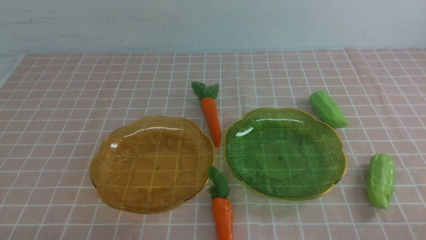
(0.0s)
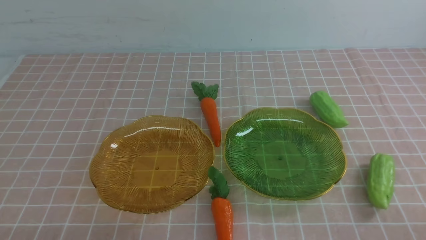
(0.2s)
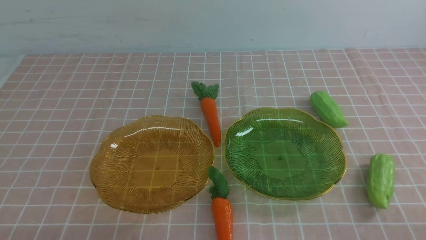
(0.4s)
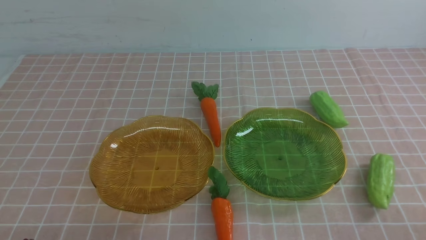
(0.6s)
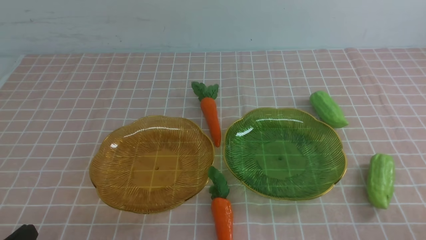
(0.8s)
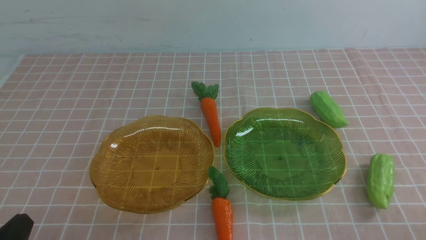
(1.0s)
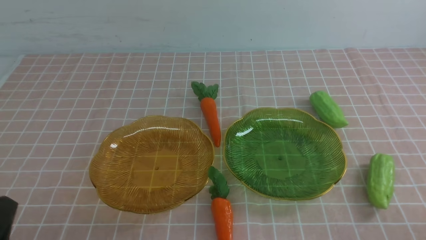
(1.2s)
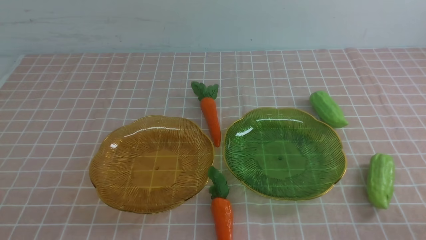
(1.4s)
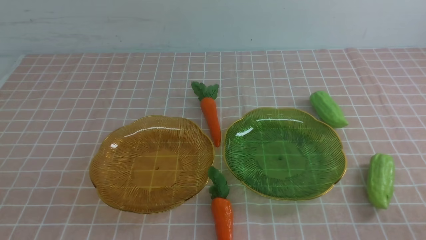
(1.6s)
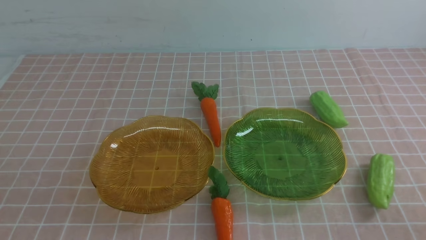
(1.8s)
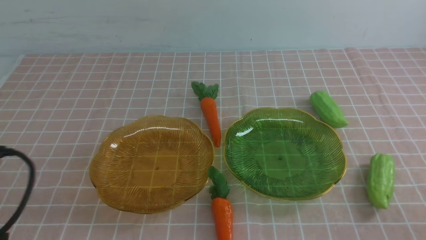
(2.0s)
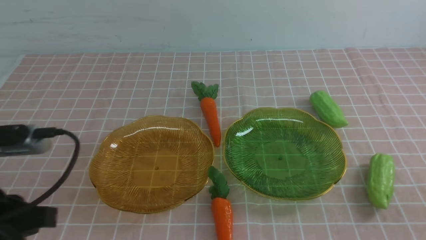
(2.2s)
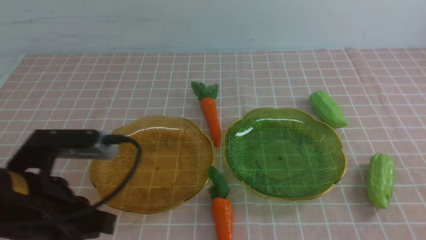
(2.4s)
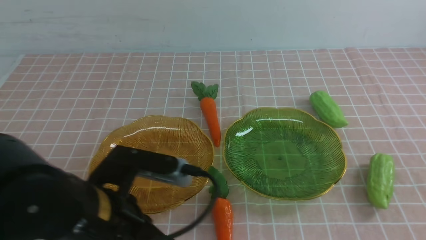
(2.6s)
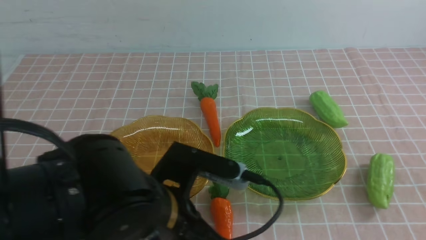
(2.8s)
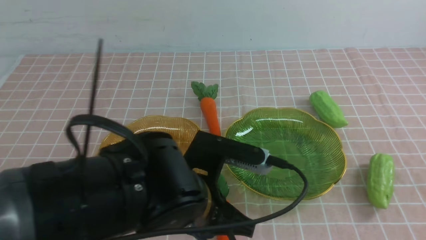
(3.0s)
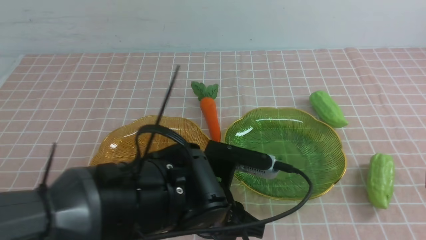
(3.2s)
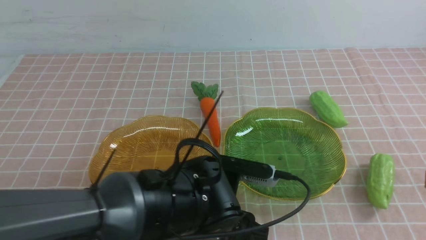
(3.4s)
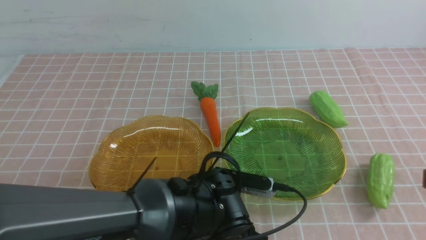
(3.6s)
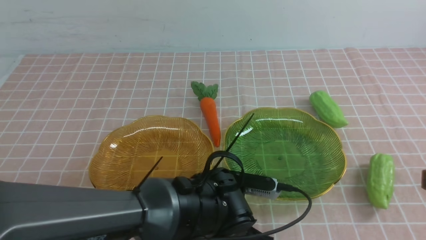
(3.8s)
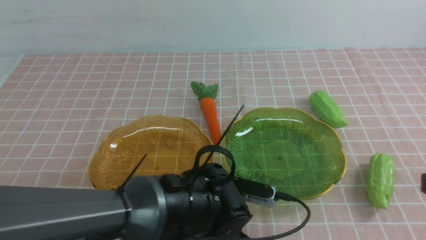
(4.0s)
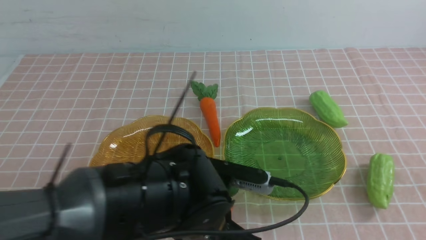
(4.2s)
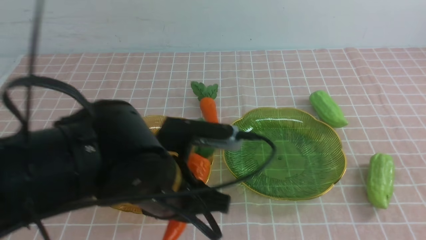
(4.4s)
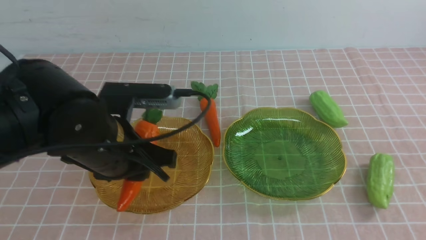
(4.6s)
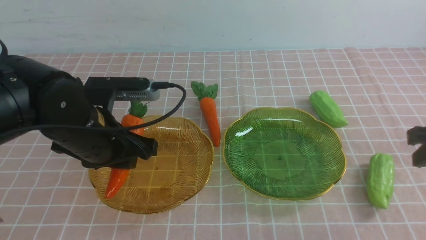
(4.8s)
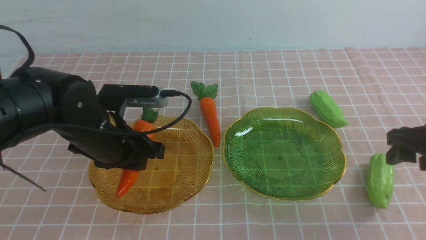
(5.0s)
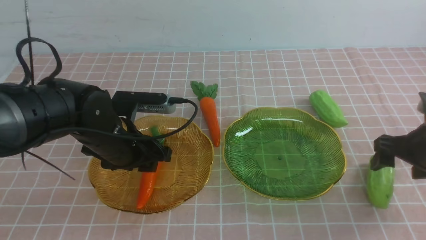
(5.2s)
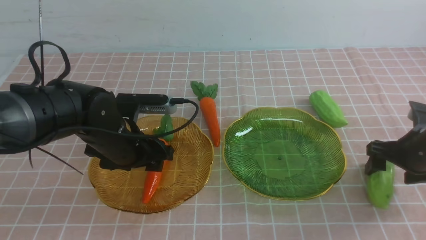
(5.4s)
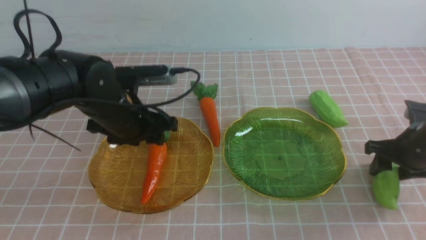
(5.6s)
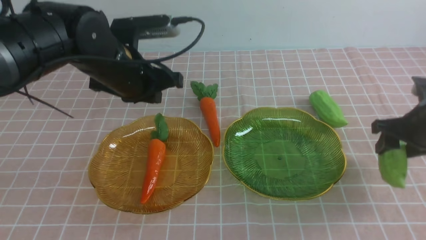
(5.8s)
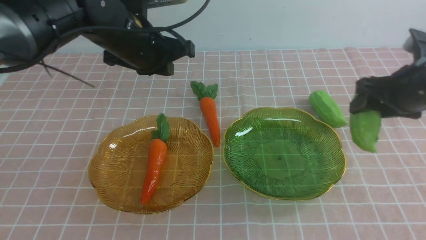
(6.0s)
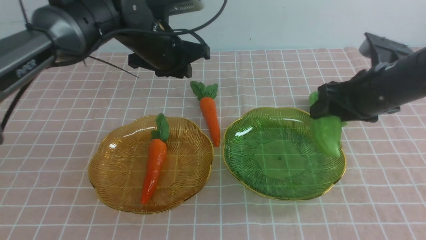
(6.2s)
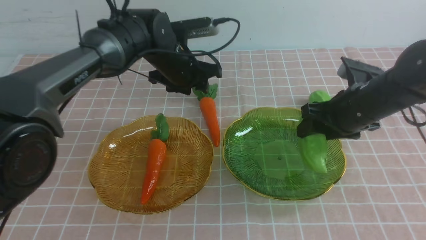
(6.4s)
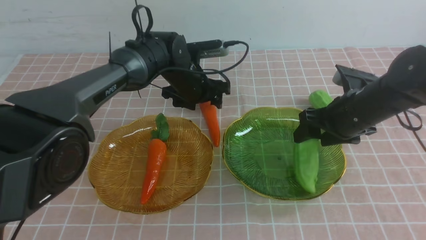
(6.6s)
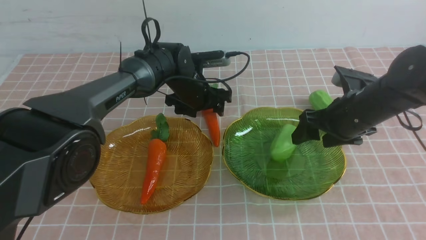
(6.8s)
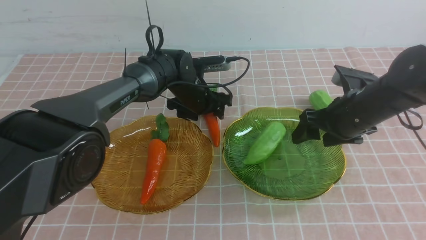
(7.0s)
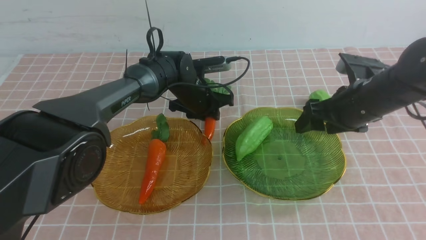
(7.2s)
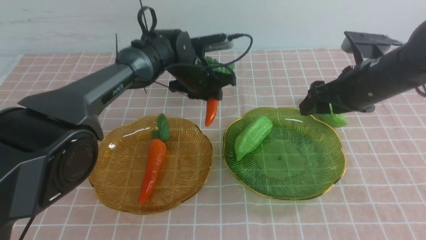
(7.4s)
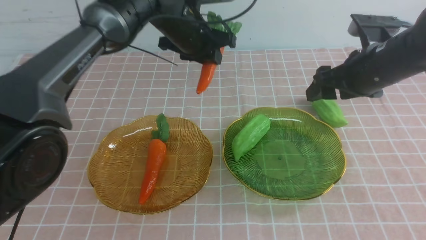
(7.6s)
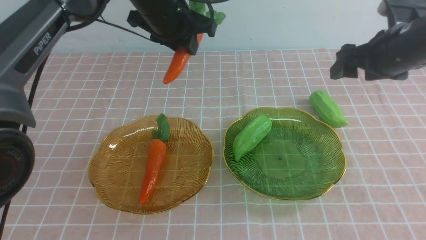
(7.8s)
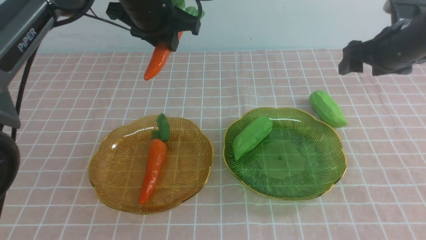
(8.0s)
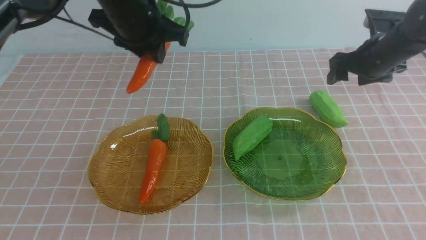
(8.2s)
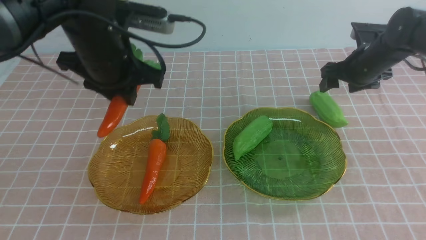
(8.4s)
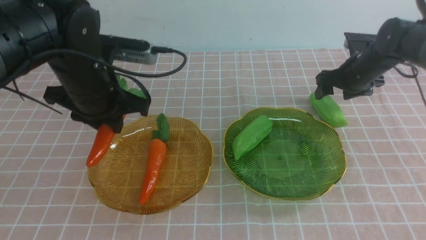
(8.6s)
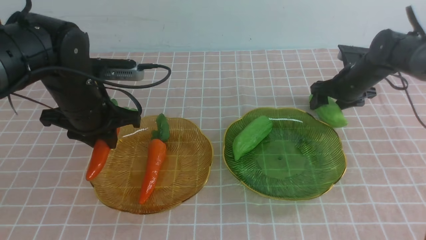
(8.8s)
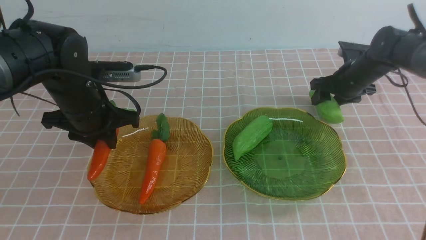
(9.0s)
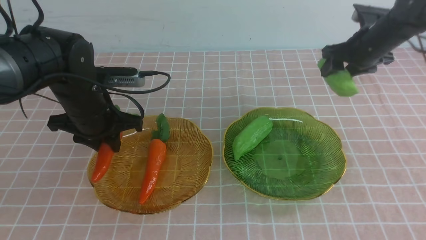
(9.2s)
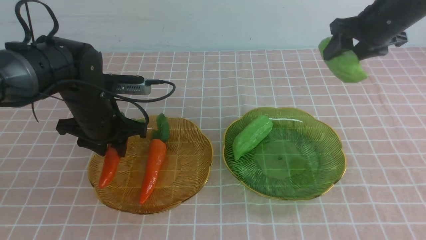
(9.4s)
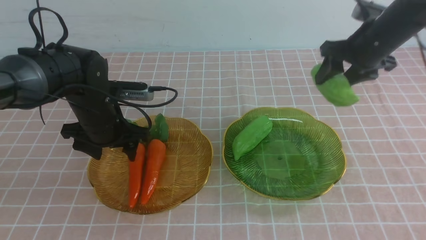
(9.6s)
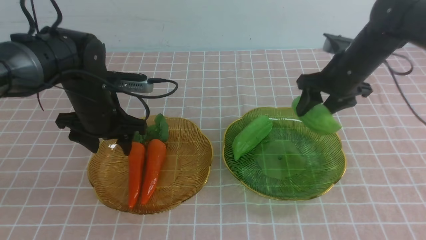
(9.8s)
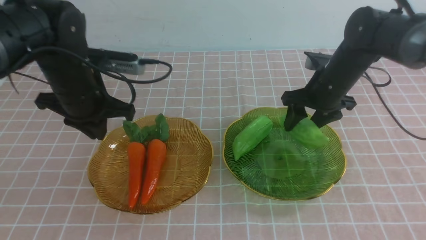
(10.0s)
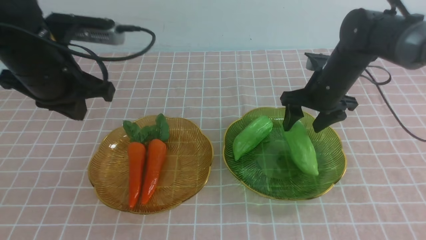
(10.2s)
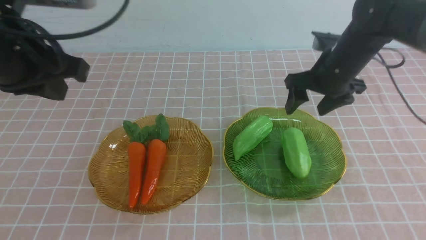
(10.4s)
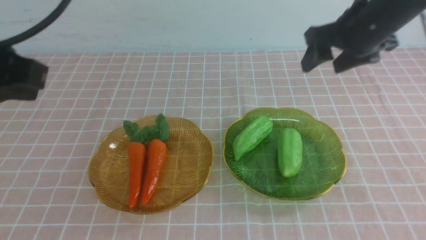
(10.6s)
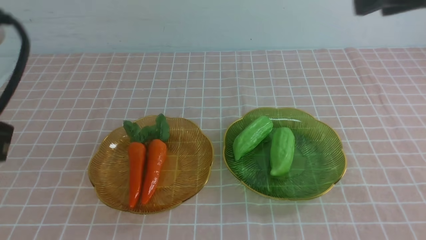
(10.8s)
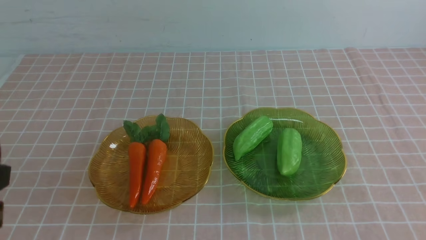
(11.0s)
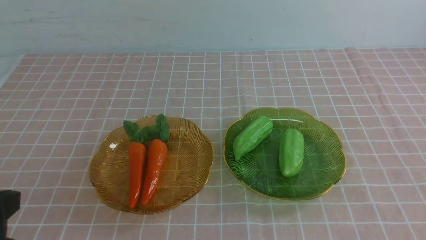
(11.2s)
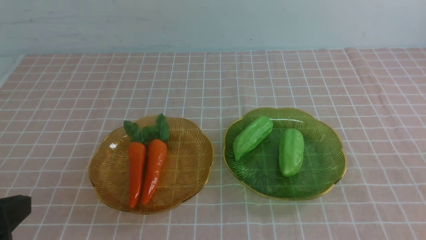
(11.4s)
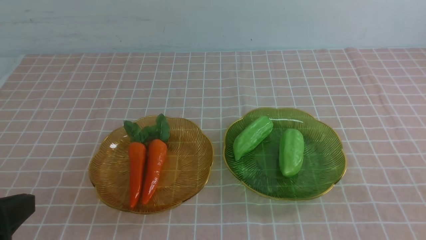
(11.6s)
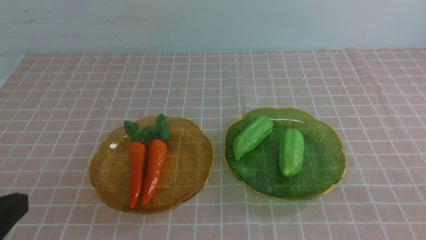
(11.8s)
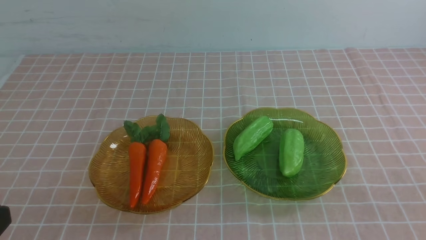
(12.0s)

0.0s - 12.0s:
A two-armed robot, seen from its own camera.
Step, 0.0s - 5.4s: use the left arm to grab a carrot and put it into the left plate.
Step, 5.6s - 6.8s: use the right arm to grab a chayote and put it into the right plate.
Step, 7.0s - 9.4s: use the left arm to grab a carrot and put it into the left plate.
Step, 9.6s - 10.2s: use the right arm to grab a chayote and put it into the right plate.
1.6s - 3.0s: The right gripper shifts approximately 15 cm upward and forward; the left gripper heads to the right and forward, covering roughly 25 cm.
3.0s - 4.4s: The right gripper ends up roughly 5 cm from where it was. The left gripper travels downward and back again, some 10 cm each way, and opens, then closes once more.
4.4s - 6.0s: The right gripper goes about 20 cm forward, downward and to the left, and opens. Meanwhile the left gripper is displaced forward by about 25 cm.
6.0s - 7.6s: The right gripper moves upward, approximately 5 cm, while the left gripper moves upward, some 10 cm.
7.6s - 9.0s: The left gripper goes roughly 15 cm downward, to the left and backward, while the right gripper travels forward and downward by about 15 cm.
9.0s - 10.4s: The right gripper moves up and down over roughly 10 cm, changing direction 2 times; the left gripper goes some 20 cm upward and backward, and closes up.
10.4s - 12.0s: The left gripper shifts some 25 cm backward and downward. The right gripper heads backward, covering some 35 cm, and closes.

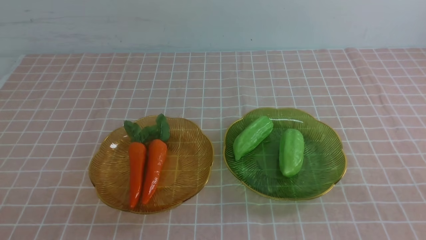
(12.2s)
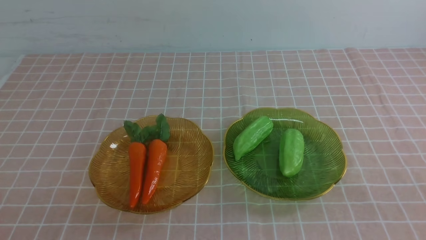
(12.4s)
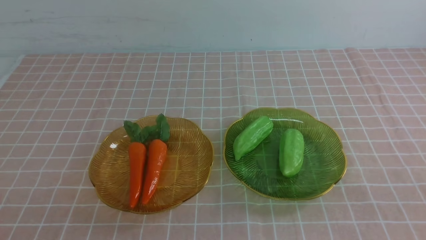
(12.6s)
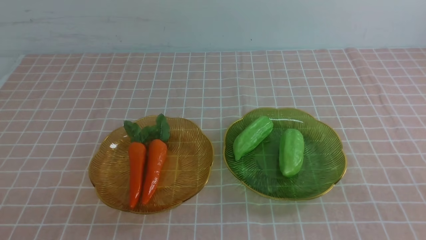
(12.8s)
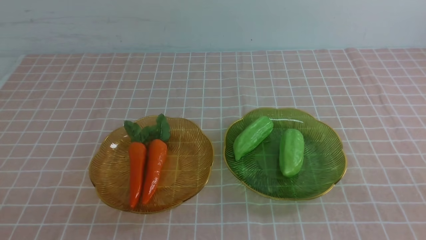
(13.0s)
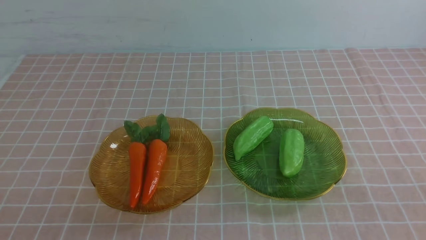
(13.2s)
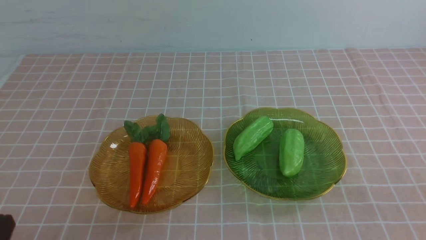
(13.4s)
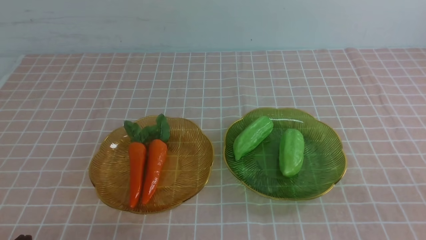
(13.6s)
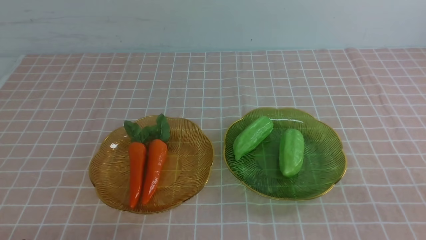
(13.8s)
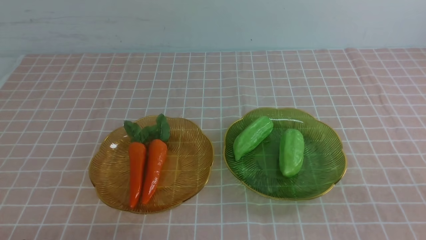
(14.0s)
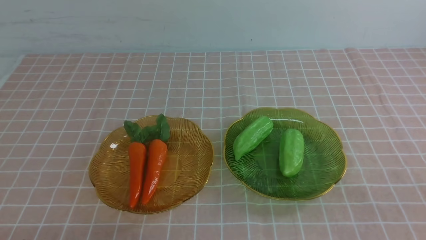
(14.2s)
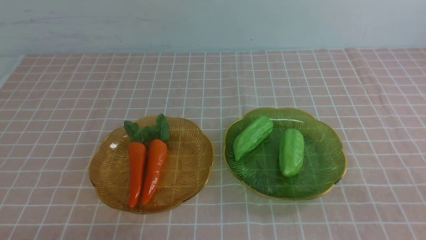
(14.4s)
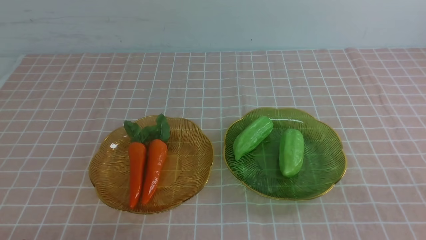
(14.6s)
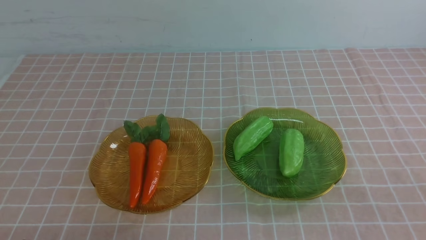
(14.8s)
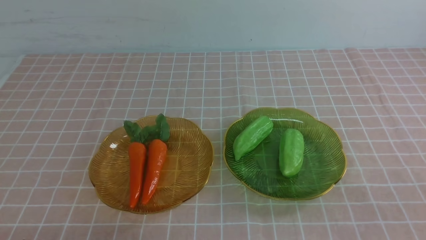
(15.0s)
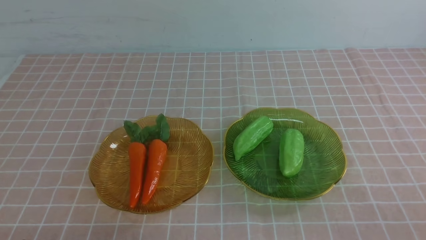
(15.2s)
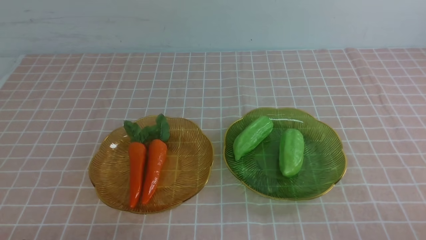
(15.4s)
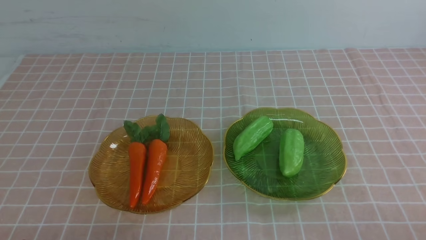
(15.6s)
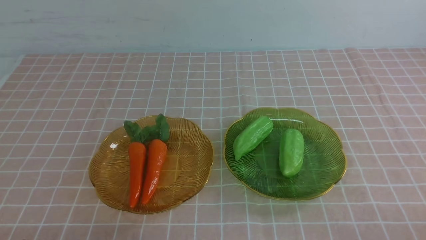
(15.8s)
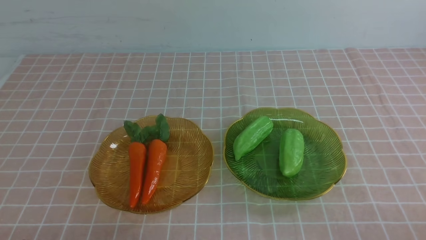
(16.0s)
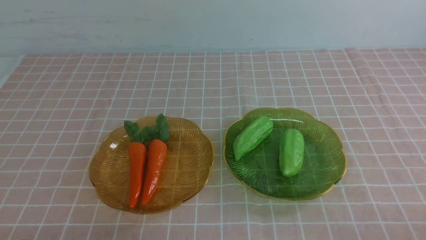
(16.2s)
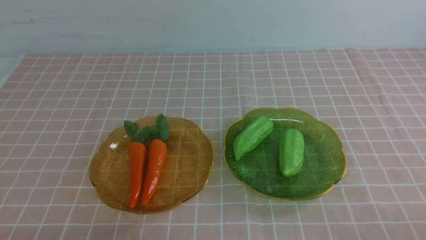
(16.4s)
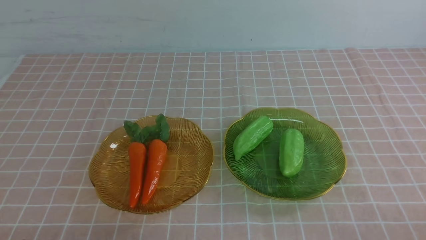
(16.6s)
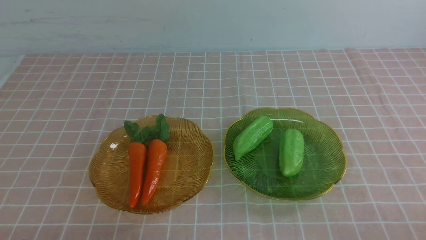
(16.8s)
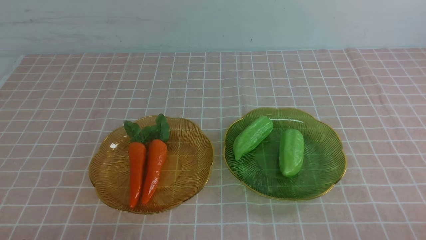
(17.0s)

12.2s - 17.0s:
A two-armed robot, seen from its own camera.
15.4s - 17.0s: The two grippers keep their place.
